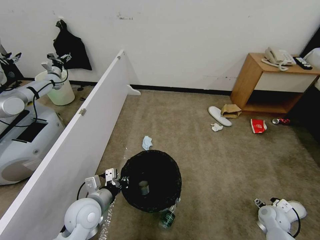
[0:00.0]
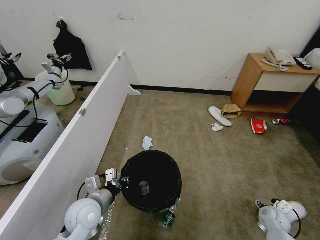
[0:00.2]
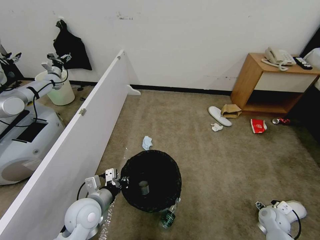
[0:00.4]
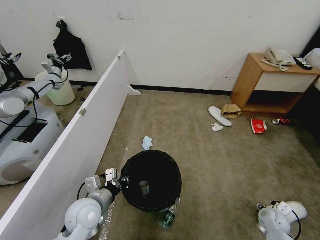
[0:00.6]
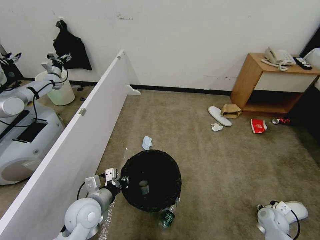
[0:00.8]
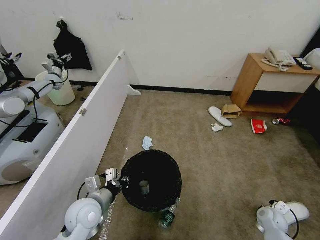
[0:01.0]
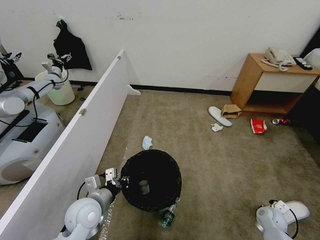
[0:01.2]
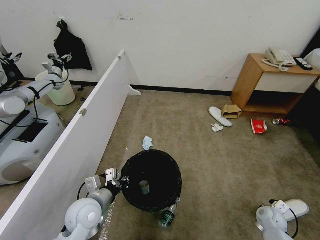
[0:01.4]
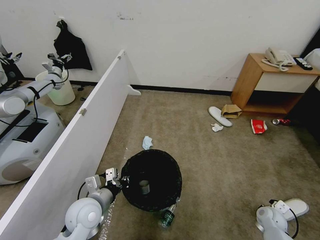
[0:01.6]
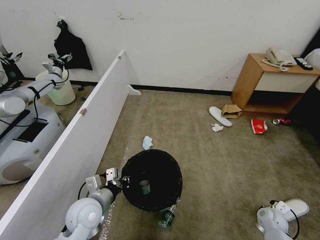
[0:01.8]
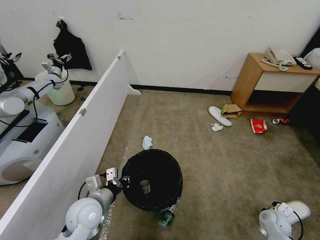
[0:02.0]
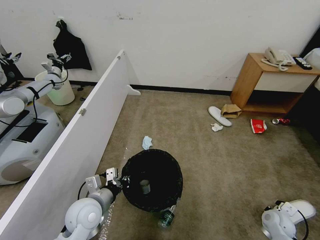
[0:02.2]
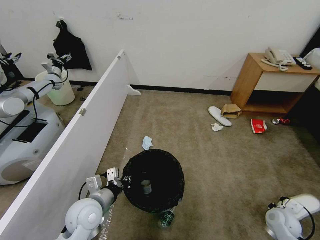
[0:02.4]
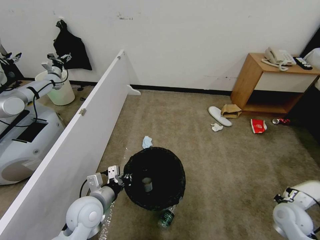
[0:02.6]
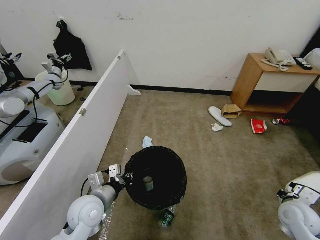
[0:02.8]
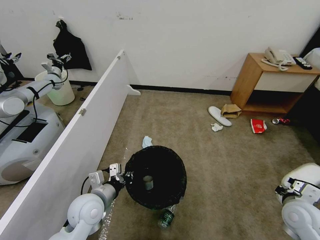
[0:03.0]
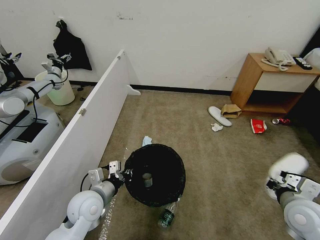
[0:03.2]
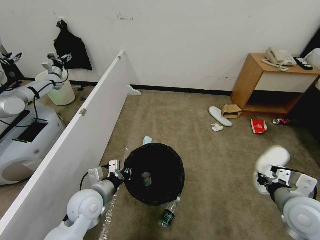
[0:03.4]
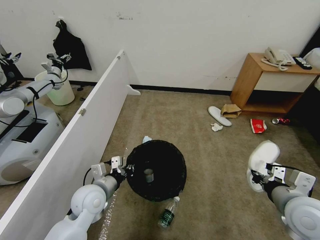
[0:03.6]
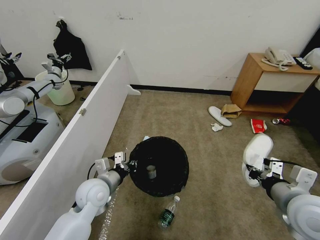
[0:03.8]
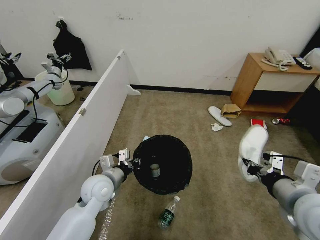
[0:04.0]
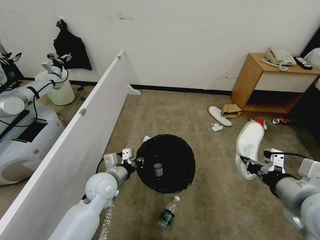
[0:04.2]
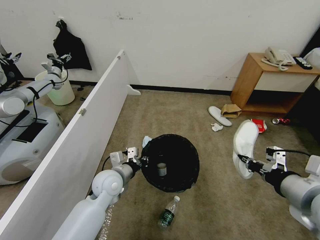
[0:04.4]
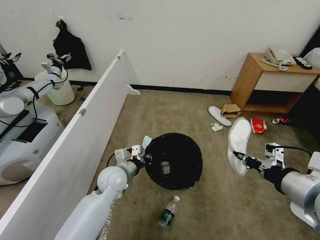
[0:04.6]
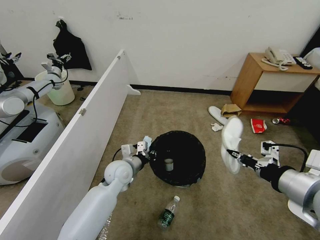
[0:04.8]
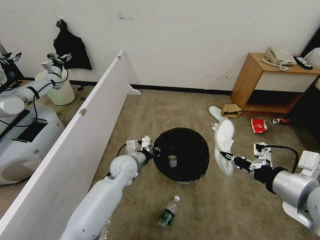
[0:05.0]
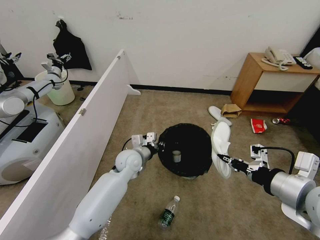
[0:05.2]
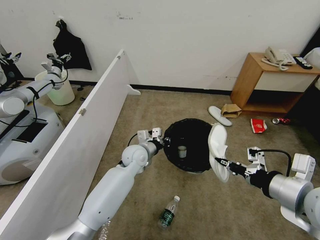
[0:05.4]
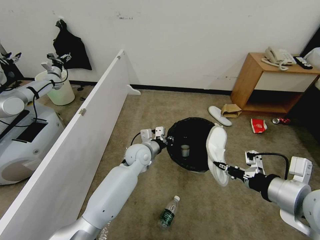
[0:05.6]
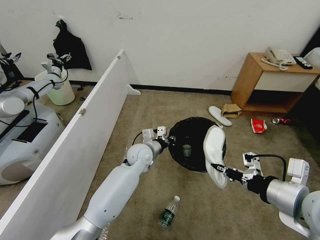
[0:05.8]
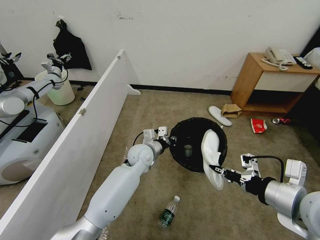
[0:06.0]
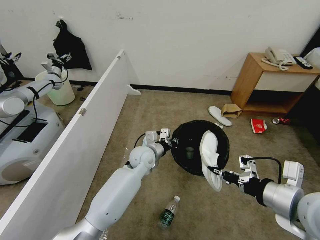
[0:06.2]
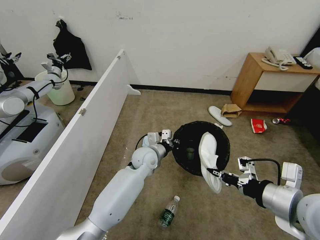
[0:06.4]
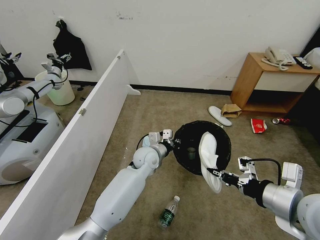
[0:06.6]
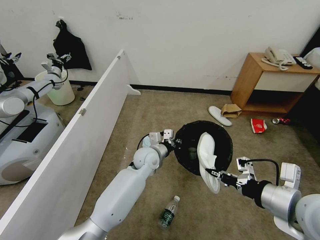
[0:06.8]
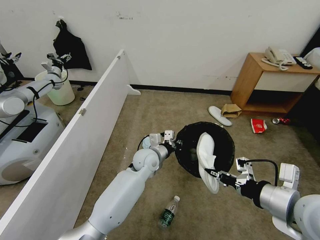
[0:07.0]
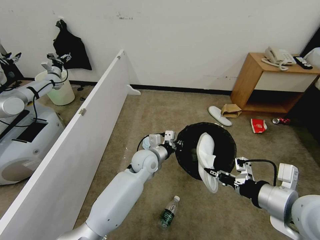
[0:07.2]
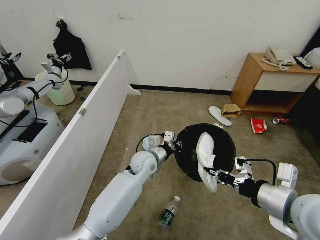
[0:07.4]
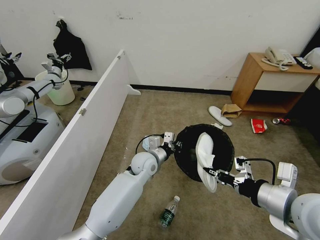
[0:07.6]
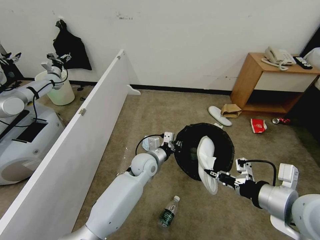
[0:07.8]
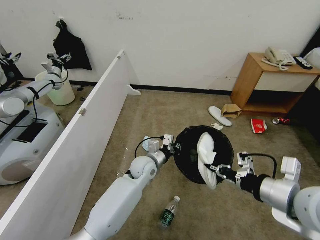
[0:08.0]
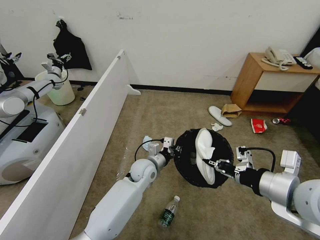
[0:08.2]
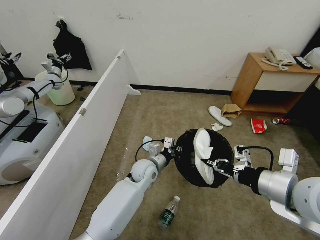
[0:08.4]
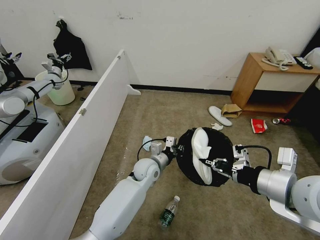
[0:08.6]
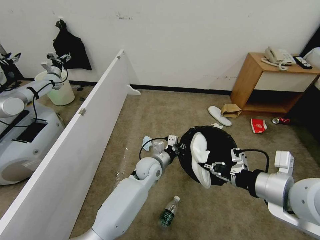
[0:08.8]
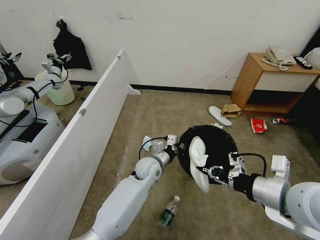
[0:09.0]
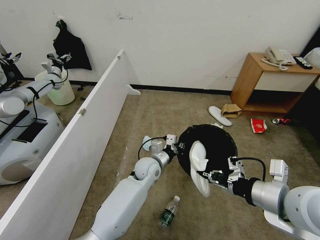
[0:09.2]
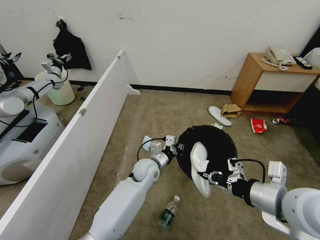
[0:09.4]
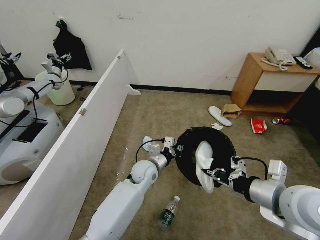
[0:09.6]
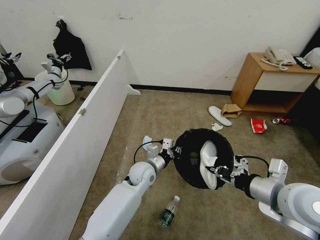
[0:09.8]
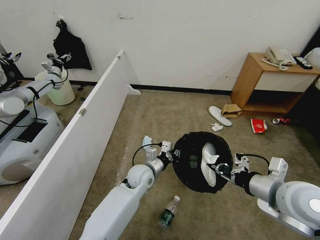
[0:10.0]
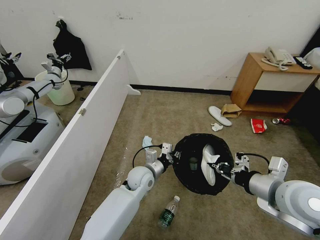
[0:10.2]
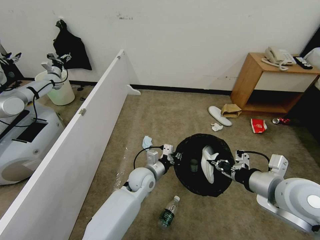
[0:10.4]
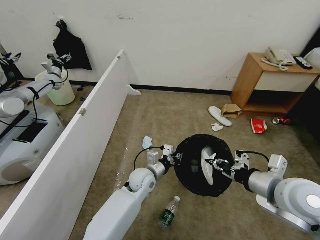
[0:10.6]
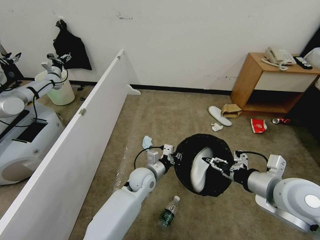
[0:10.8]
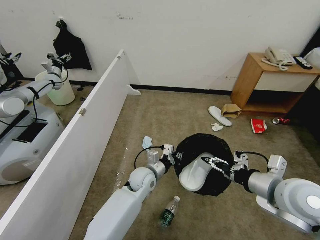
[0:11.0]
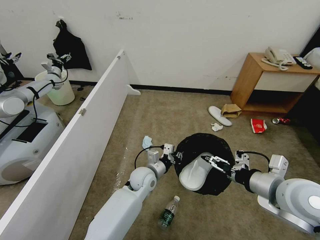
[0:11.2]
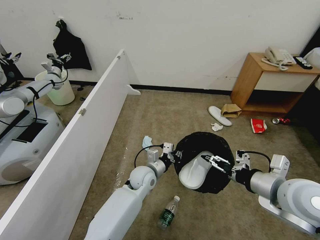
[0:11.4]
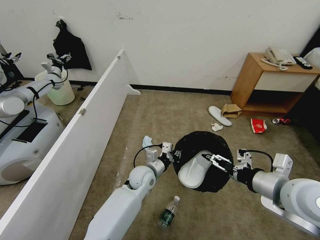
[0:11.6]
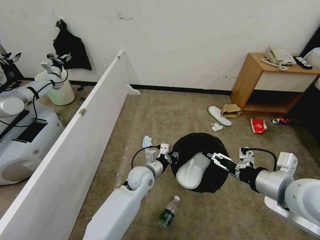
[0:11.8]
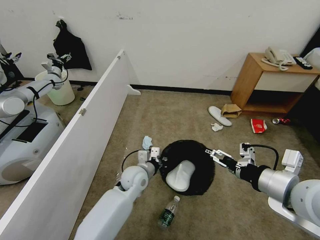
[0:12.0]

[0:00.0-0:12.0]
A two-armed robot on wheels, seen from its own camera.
Task of the whole recording: Pick up the trash bin, then pick up the garbage from the floor and place it into the trash bin.
0:00.0 to 0:01.6: The right gripper closes up.
0:01.6 to 0:03.0: The right gripper heads upward, covering about 20 cm.
0:03.0 to 0:04.4: The left gripper moves forward, some 10 cm, while the right gripper heads upward and to the left, covering approximately 20 cm.
0:04.4 to 0:06.0: The left gripper moves forward and to the right, roughly 15 cm.
0:06.0 to 0:07.6: The grippers stay close to where they were, moving slightly.
0:07.6 to 0:09.0: The grippers make only small movements.
0:09.0 to 0:10.4: The right gripper changes place by roughly 5 cm.
0:10.4 to 0:12.0: The right gripper opens up.

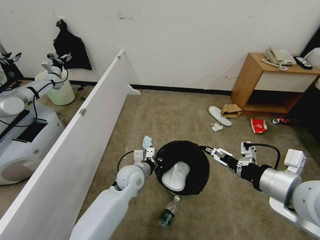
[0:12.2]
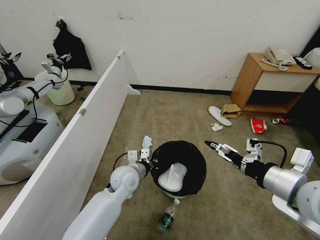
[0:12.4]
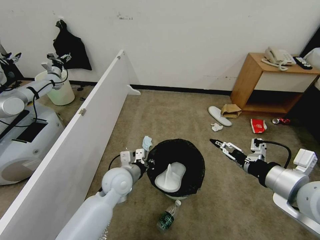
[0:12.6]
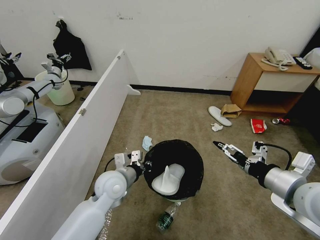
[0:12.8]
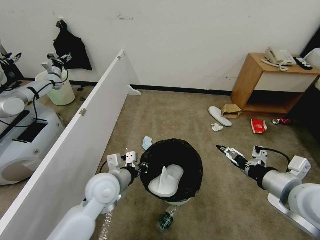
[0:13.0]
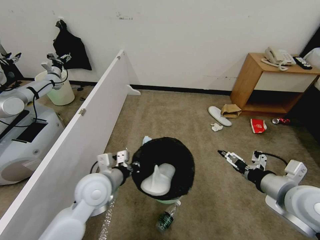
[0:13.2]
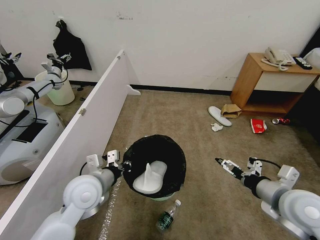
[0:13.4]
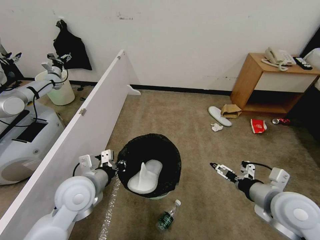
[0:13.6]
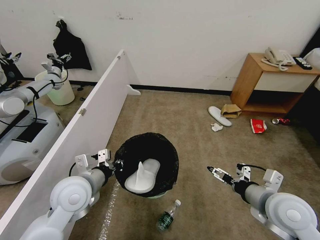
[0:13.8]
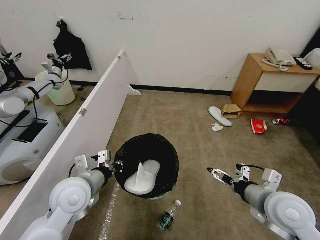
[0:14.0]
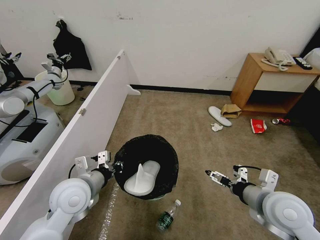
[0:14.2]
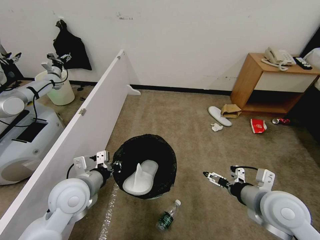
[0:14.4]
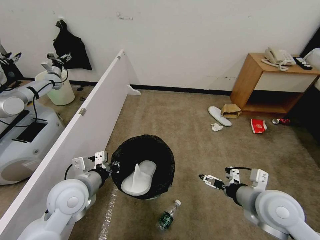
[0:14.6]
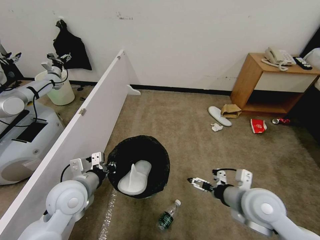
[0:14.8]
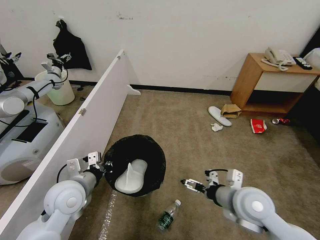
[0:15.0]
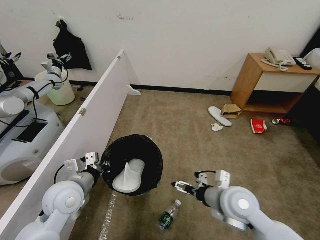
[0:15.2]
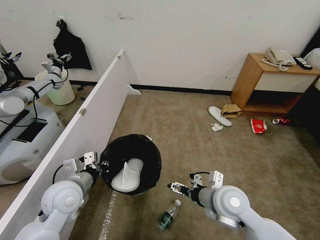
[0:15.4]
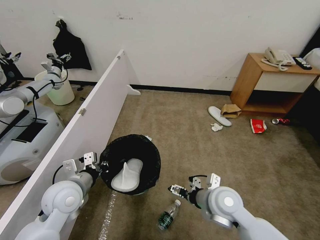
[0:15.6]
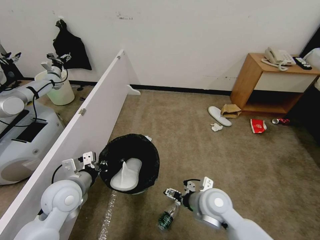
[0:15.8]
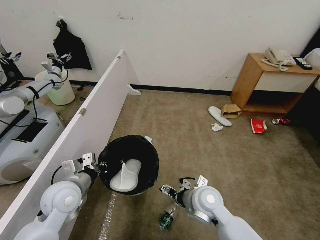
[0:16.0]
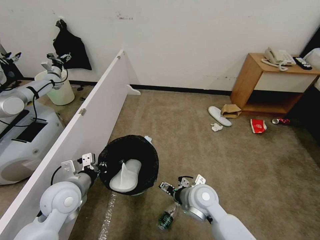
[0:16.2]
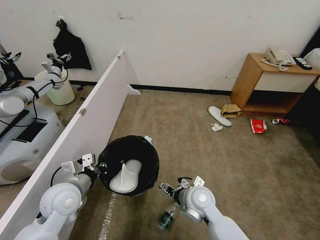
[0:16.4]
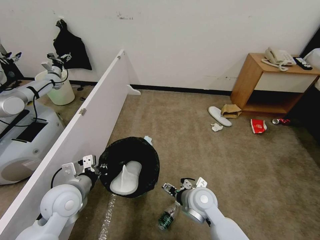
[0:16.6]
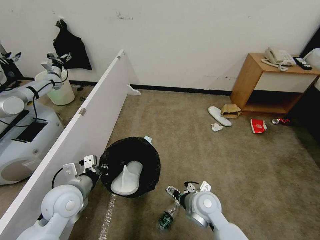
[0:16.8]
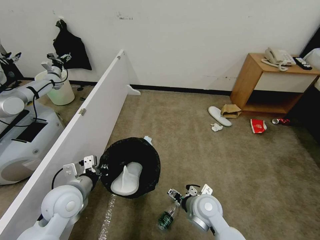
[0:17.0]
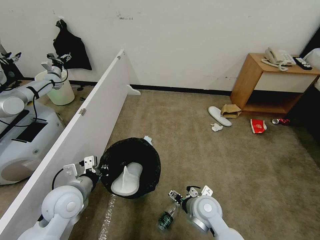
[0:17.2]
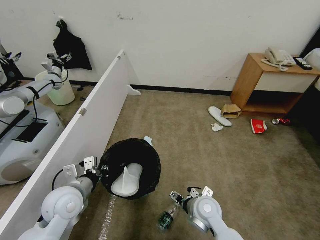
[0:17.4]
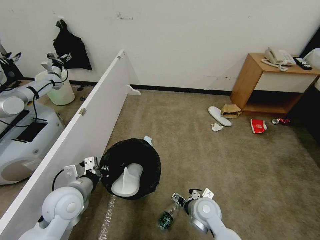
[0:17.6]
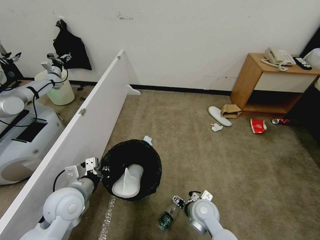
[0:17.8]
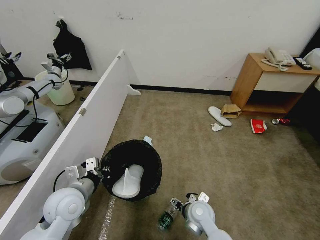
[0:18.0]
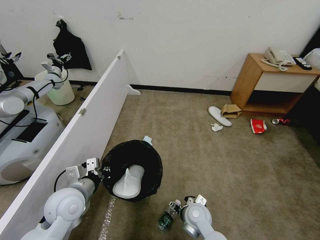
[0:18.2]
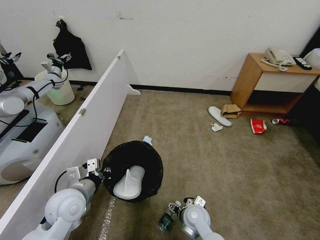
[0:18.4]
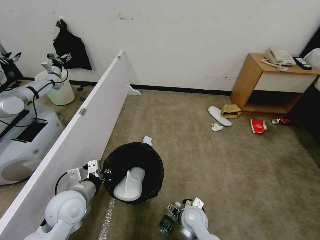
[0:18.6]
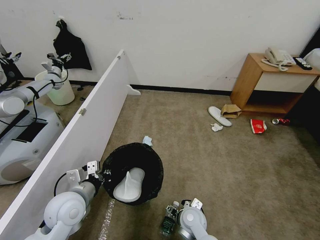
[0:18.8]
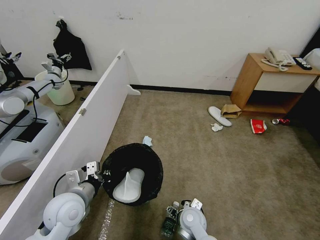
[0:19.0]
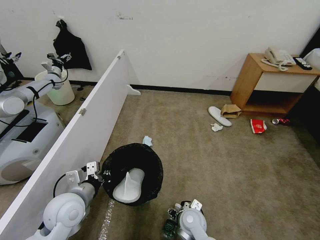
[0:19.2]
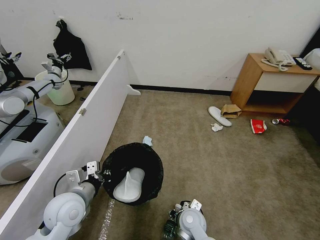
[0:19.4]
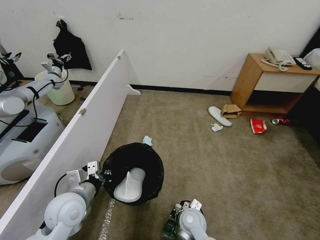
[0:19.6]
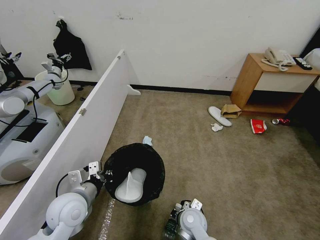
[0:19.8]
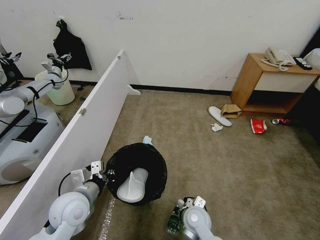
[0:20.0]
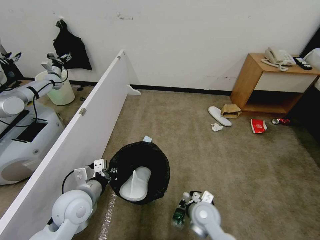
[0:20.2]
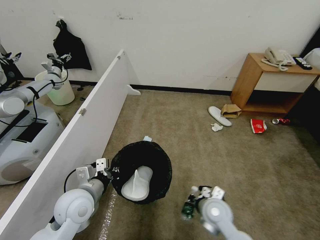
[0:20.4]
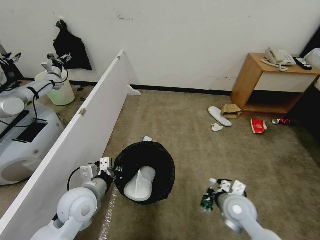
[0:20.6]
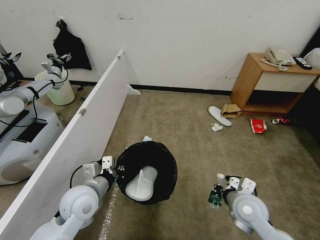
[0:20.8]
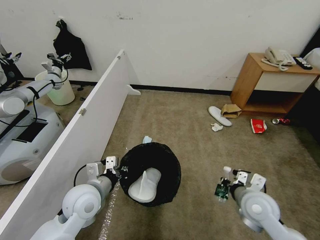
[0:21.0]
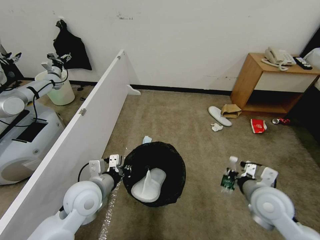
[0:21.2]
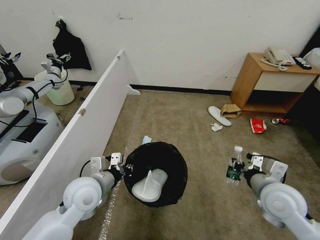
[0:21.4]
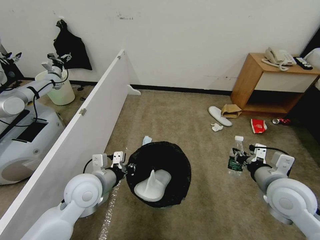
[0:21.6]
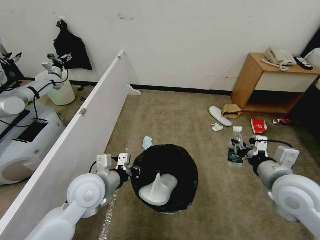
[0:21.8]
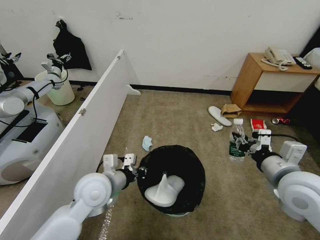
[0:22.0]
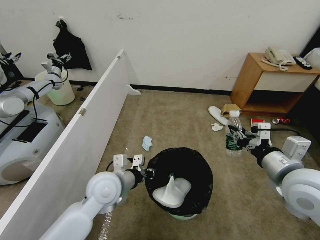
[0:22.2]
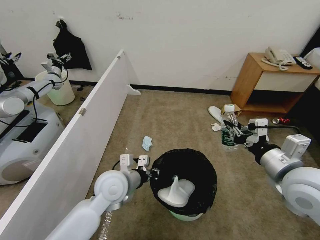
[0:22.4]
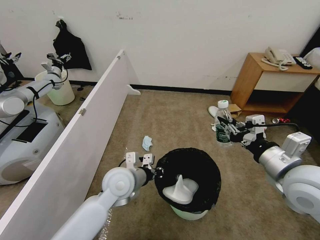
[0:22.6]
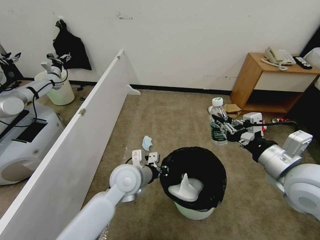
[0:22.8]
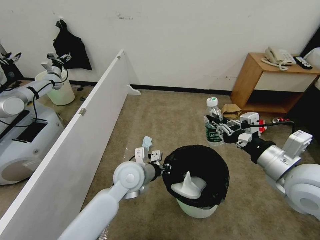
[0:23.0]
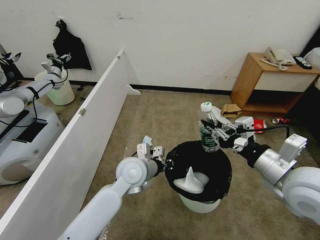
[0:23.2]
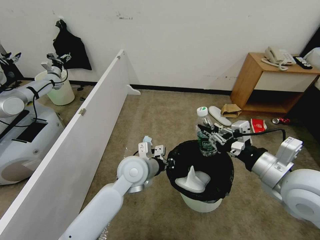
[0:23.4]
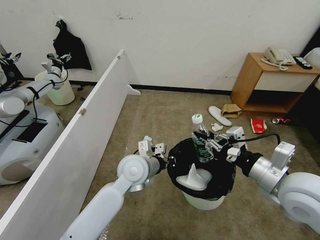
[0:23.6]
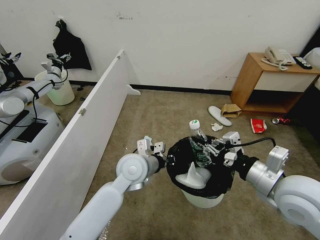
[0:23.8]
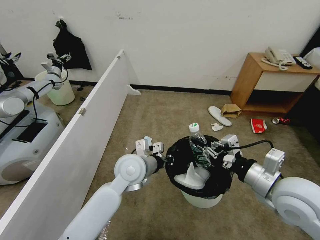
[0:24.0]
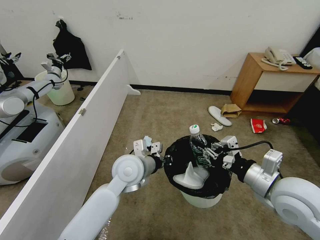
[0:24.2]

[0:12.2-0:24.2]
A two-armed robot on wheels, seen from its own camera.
Task of the whole recording: Pick up the trash bin, then pick up the garbage from the floor and place it into the trash bin.
0:12.2 to 0:13.8: The right gripper goes about 10 cm downward; the left gripper shifts some 20 cm to the left, upward and backward.
0:13.8 to 0:15.2: The right gripper heads to the left, covering approximately 10 cm.
0:15.2 to 0:16.6: The right gripper is displaced downward and to the left by roughly 10 cm.
0:16.6 to 0:18.2: The right gripper goes some 10 cm downward.
0:18.2 to 0:19.8: The right gripper closes.
0:19.8 to 0:21.2: The right gripper shifts about 25 cm to the right and upward.
0:21.2 to 0:22.6: The left gripper heads to the right, covering roughly 10 cm, while the right gripper is displaced upward by roughly 15 cm.
0:22.6 to 0:24.2: The grippers move only a little.
